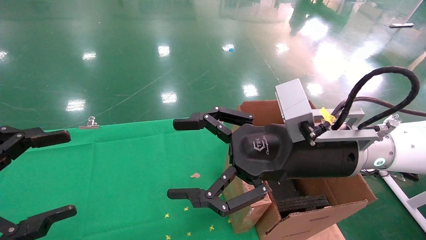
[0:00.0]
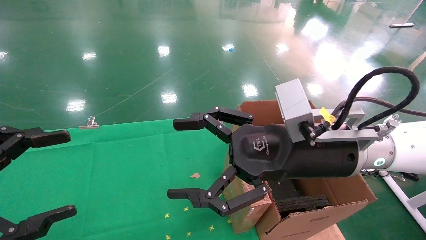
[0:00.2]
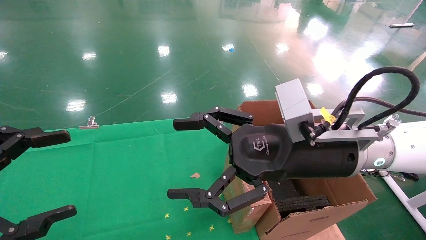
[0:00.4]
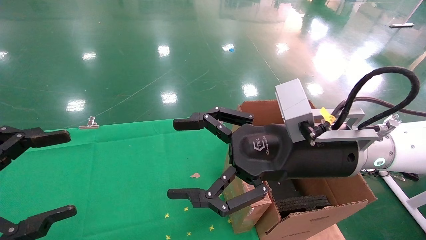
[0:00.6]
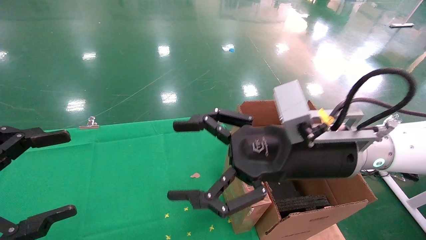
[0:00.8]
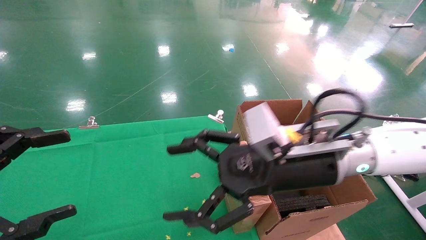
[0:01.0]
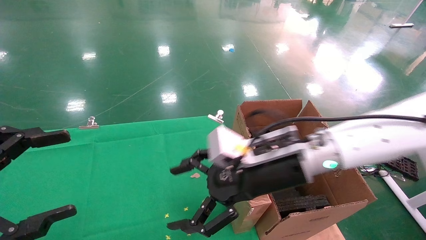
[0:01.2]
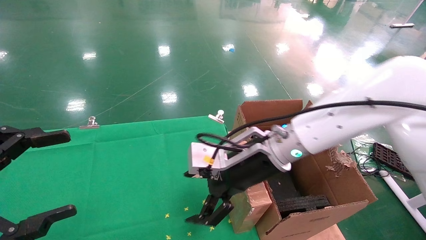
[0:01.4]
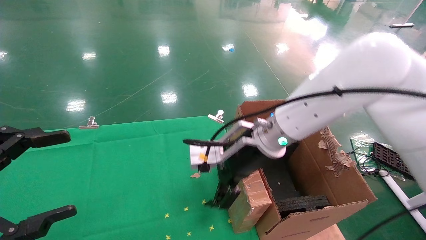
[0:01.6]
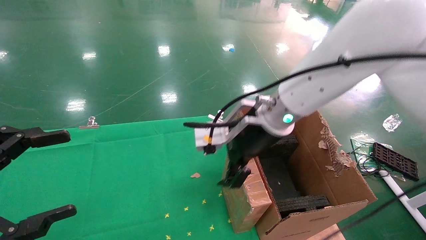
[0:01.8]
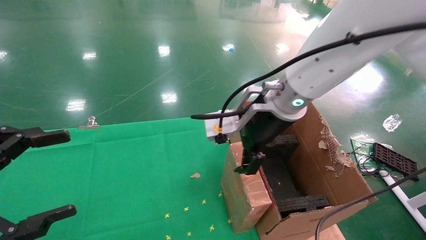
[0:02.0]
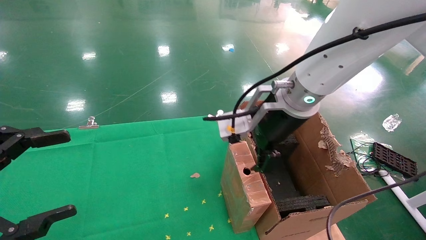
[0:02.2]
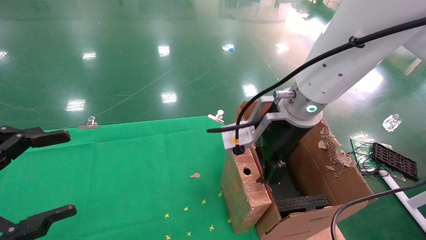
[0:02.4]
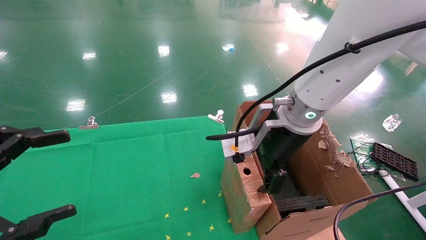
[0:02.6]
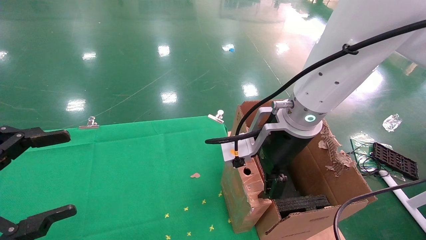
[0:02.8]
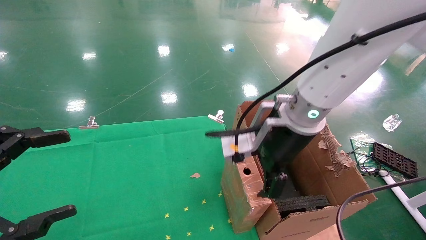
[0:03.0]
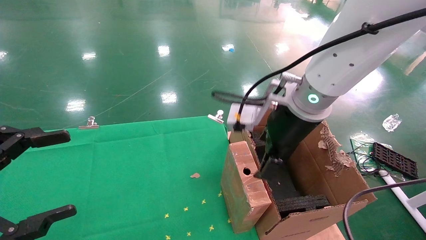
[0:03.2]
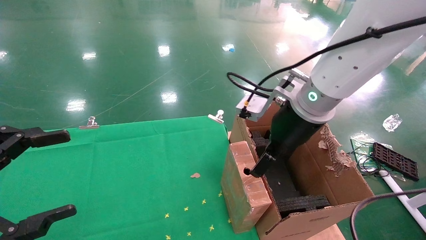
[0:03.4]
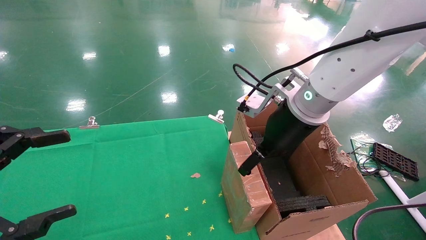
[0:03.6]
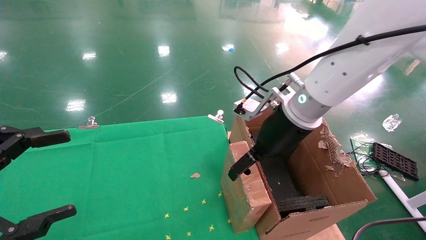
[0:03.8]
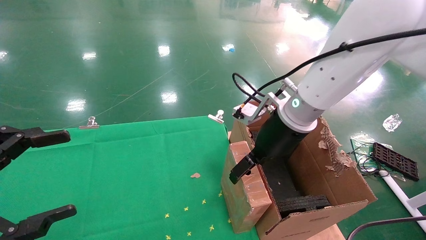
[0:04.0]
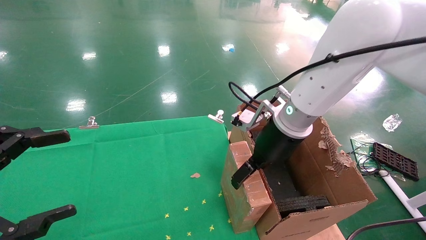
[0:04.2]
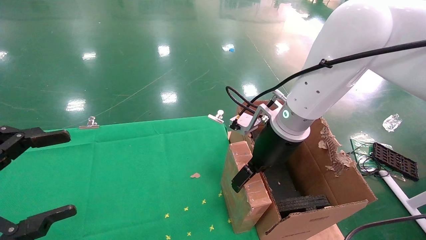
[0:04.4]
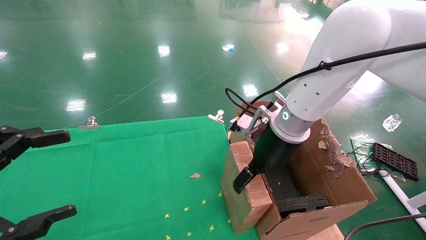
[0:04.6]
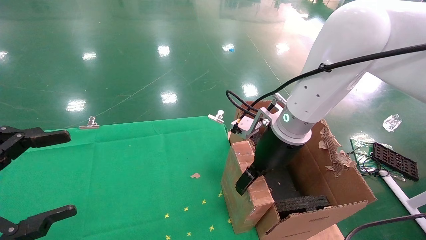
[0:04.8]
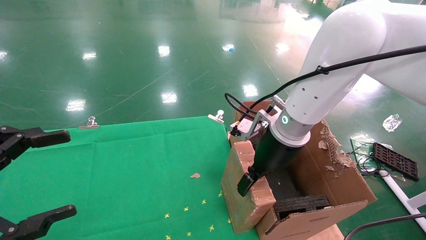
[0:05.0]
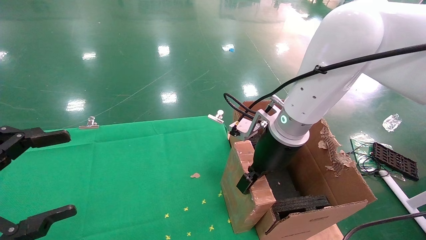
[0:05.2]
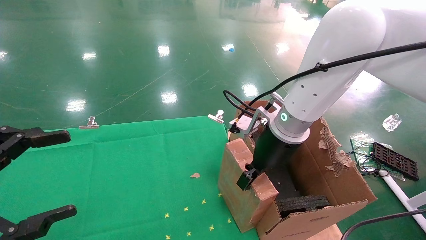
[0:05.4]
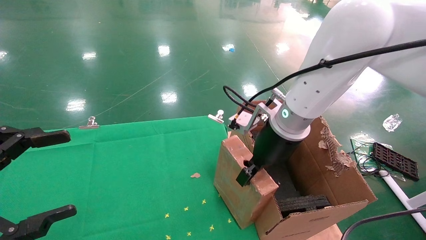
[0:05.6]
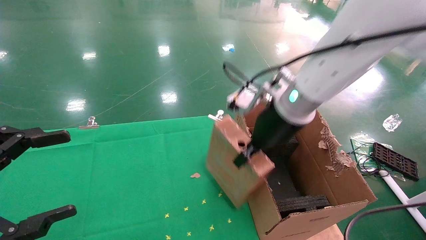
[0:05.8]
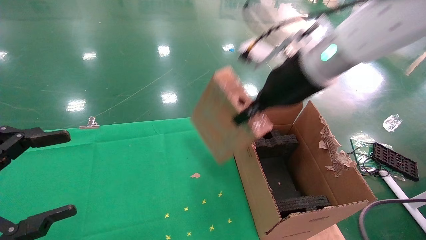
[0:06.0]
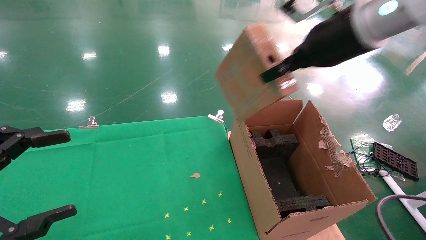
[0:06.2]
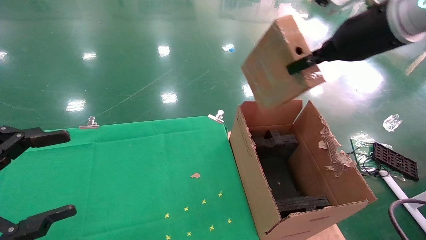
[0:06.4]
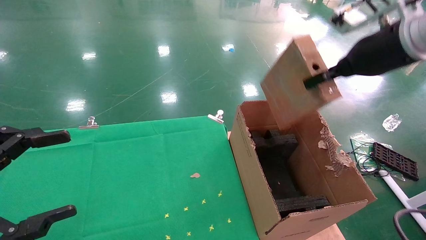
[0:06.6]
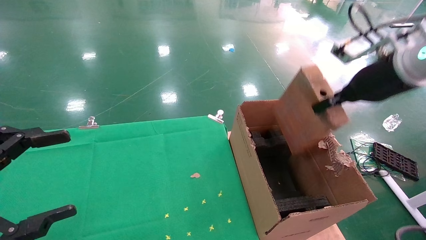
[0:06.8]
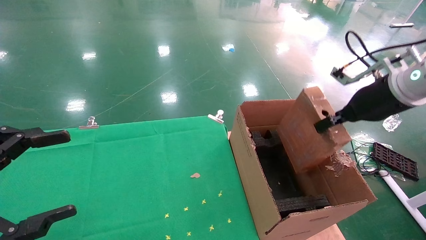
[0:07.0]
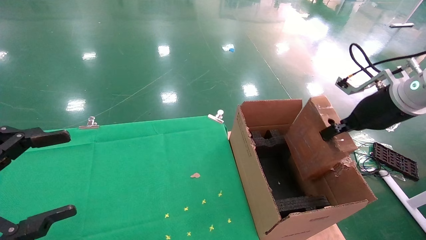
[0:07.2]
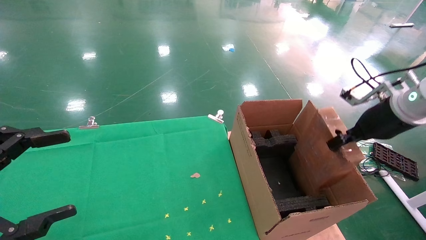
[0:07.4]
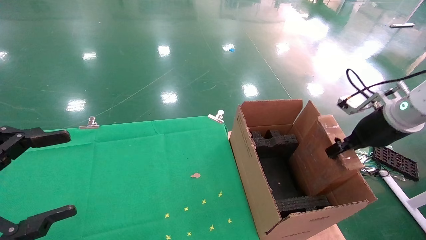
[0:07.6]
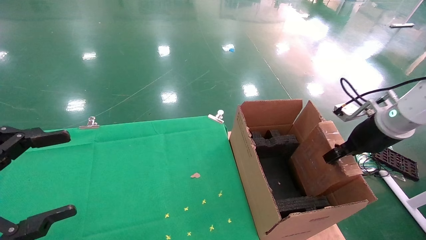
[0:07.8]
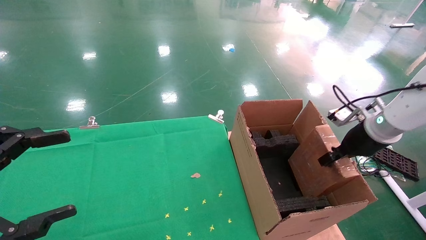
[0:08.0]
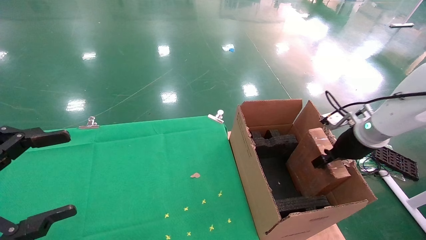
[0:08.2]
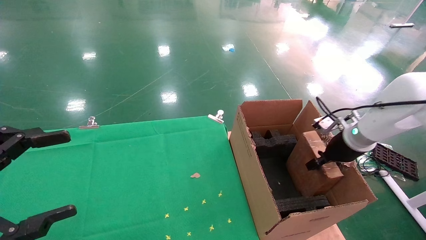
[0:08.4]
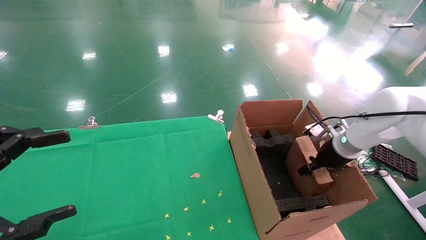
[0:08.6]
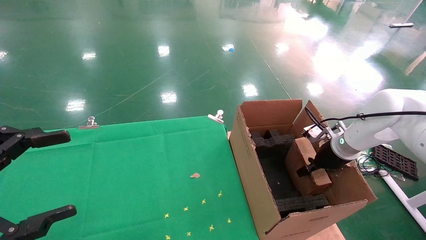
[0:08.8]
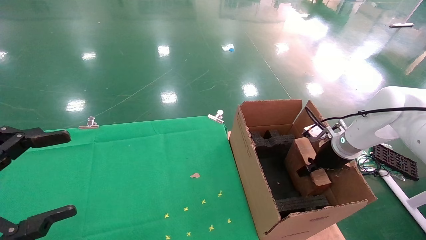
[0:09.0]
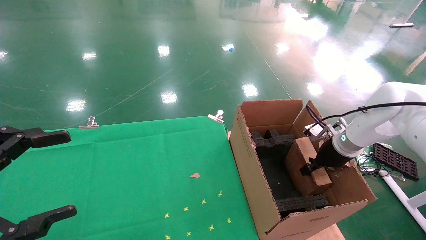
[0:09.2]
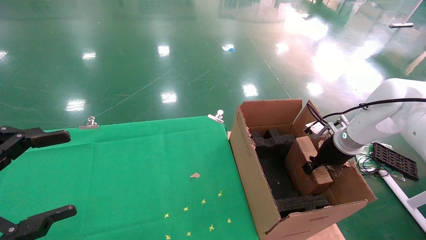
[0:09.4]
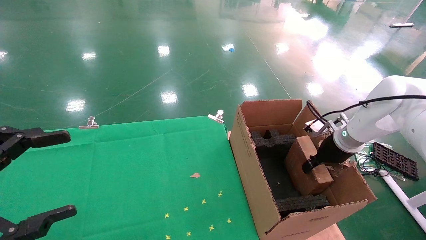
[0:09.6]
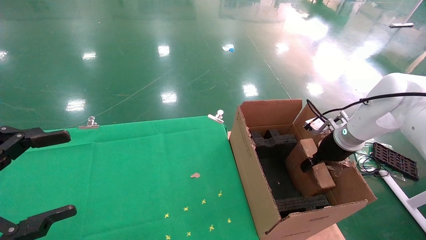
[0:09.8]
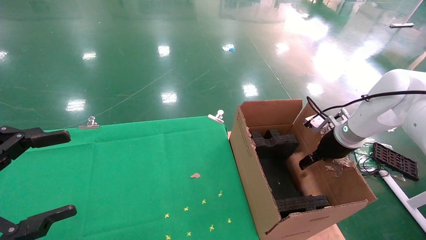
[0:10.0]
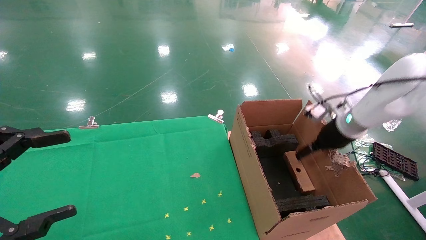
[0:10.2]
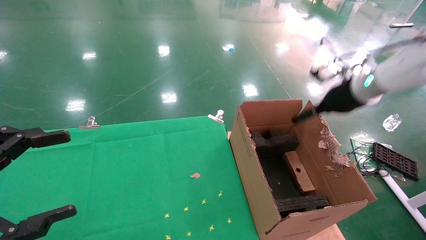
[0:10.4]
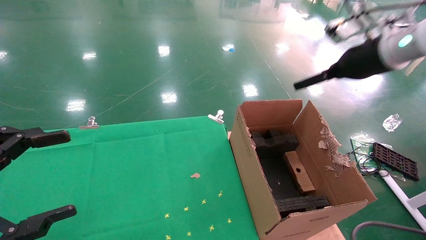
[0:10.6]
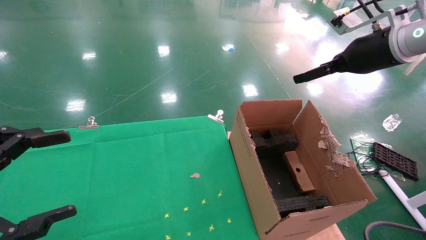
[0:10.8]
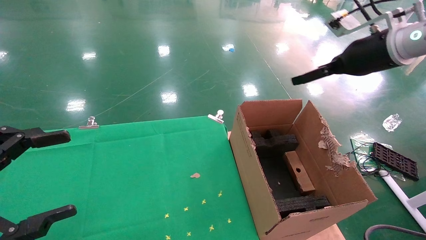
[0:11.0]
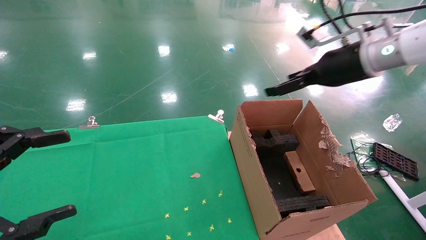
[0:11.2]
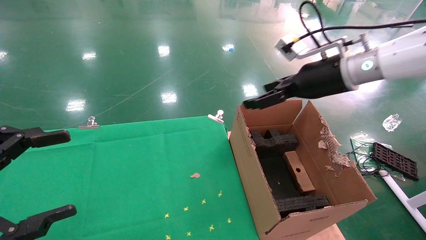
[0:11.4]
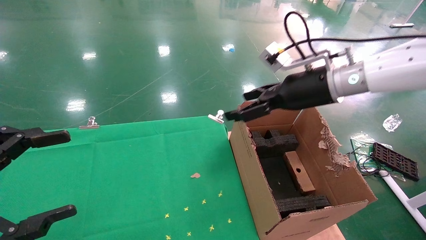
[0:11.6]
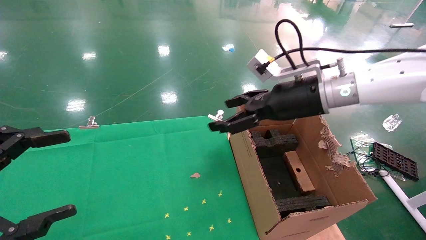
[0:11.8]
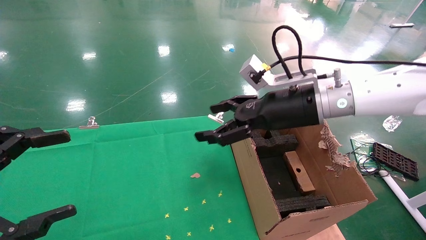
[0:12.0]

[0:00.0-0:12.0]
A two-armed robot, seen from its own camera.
Task of the whole recording: using a robotic arm to pick up a cardboard box and palace it the carton.
Step, 0:01.2 to 0:05.4: Pick up the mouse and the power cord paper box.
Step, 0:05.6 to 0:10.6: Place the mouse and the power cord paper box into the container.
0:00.0 to 0:01.6: The right gripper is displaced forward and to the left by roughly 10 cm.
0:01.6 to 0:03.0: The right gripper changes place by approximately 5 cm.
0:03.0 to 0:04.4: The right gripper shifts by some 5 cm.
0:04.4 to 0:06.0: The right gripper moves upward, approximately 10 cm, and closes its fingers.
0:06.0 to 0:07.6: The right gripper shifts about 25 cm to the right and downward.
0:07.6 to 0:09.0: The right gripper heads downward and forward, covering about 15 cm.
0:09.0 to 0:10.4: The right gripper heads upward, covering approximately 15 cm, and opens.
0:10.4 to 0:12.0: The right gripper travels to the left by approximately 15 cm.

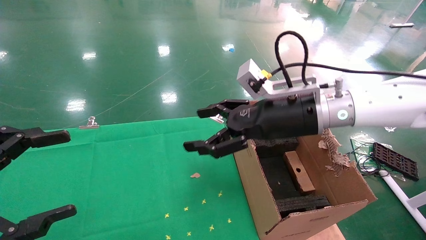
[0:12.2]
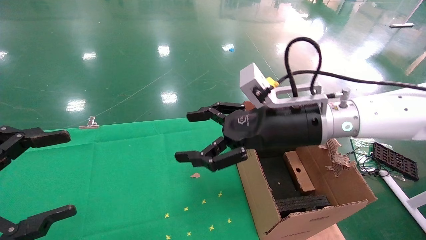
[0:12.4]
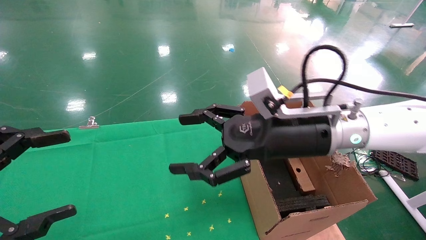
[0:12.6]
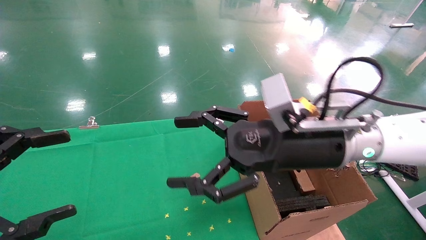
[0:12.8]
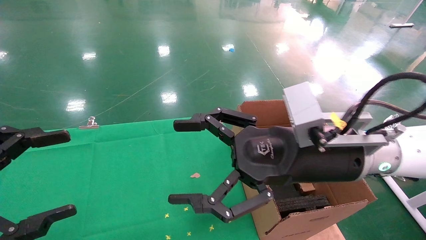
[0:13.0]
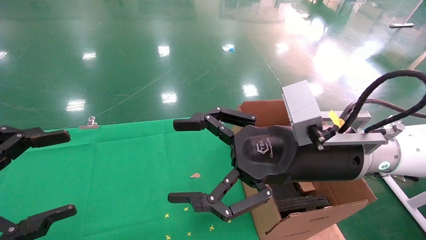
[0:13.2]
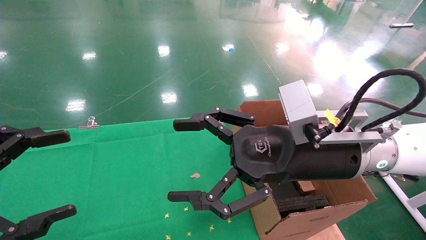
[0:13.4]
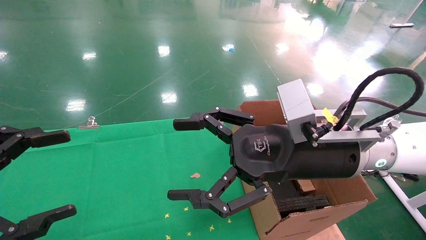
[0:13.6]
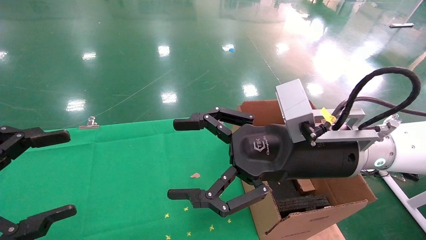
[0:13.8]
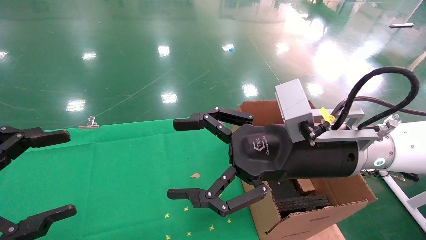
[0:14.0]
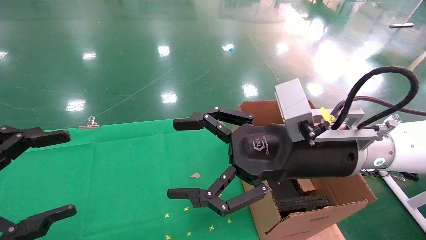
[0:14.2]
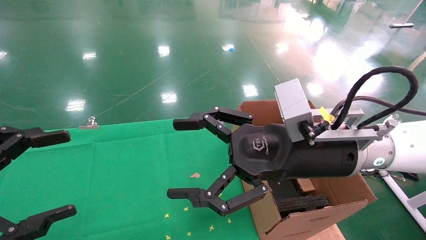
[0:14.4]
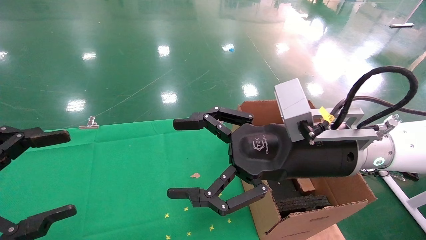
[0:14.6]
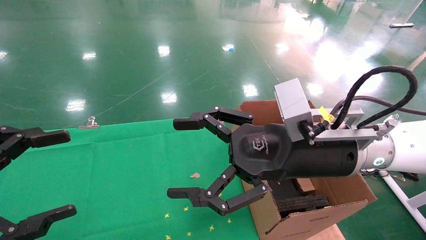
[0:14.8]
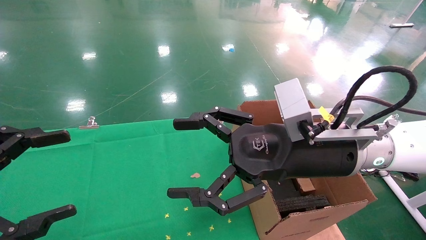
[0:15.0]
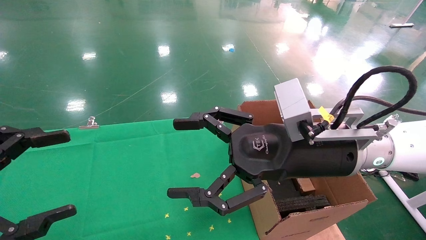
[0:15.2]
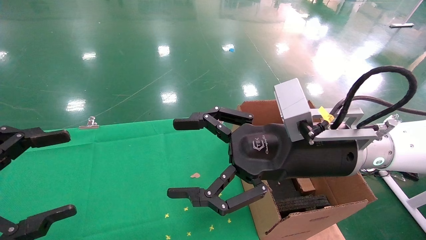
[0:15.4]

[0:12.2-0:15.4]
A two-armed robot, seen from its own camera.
Task of the whole recording: using a robotic arm to pick up a cardboard box and palace it the carton.
0:12.2 to 0:13.8: The right gripper heads backward, covering roughly 10 cm.
0:13.8 to 0:15.4: Neither gripper changes place.
